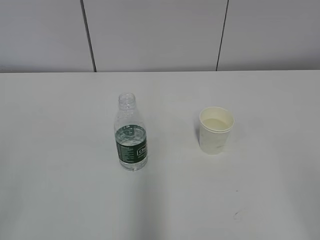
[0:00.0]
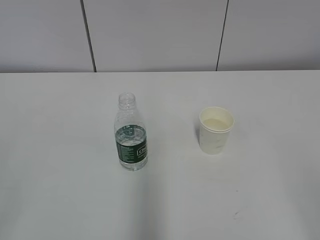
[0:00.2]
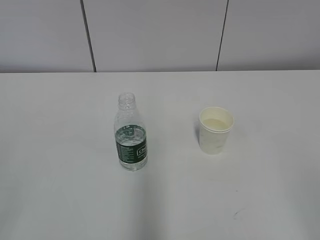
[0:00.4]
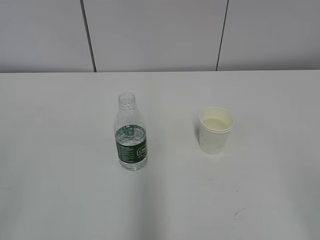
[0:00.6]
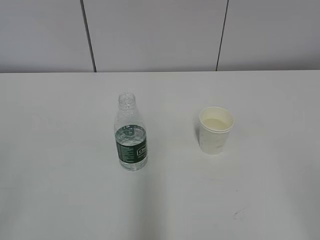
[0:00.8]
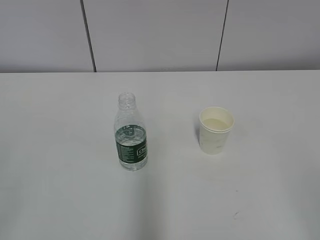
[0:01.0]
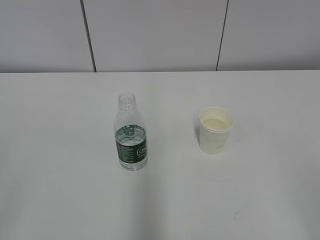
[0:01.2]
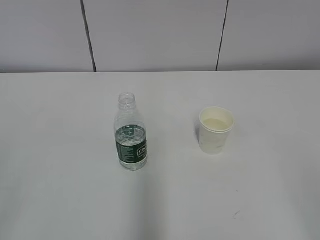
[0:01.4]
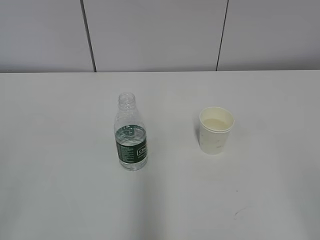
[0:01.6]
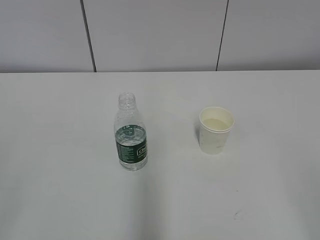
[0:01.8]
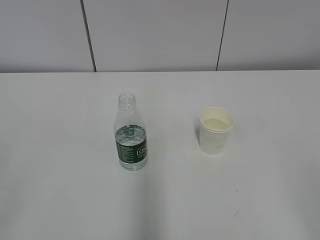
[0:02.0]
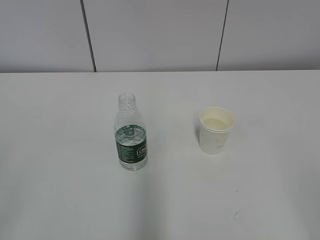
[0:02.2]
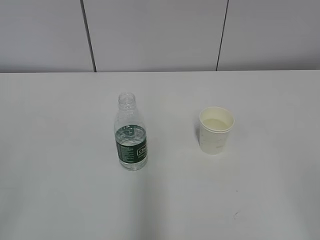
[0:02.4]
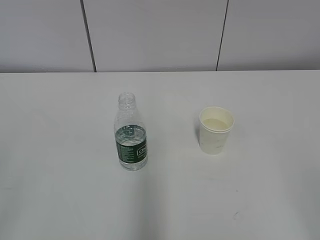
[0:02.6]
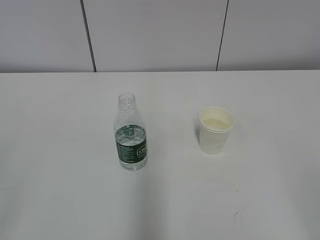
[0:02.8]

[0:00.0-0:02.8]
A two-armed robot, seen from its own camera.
0:00.0 to 0:02.8: Both grippers stay put.

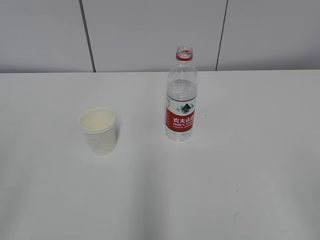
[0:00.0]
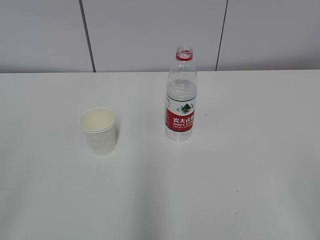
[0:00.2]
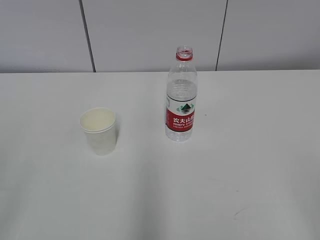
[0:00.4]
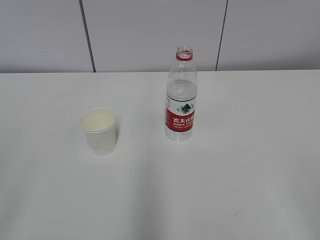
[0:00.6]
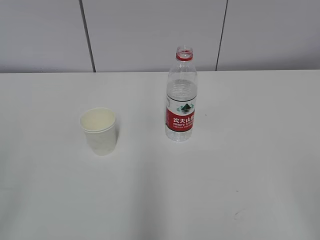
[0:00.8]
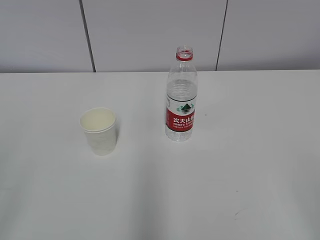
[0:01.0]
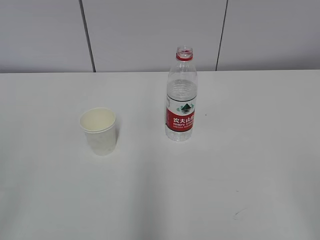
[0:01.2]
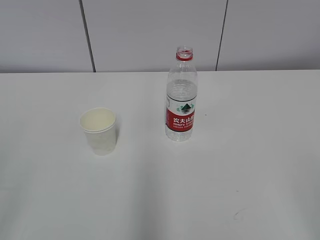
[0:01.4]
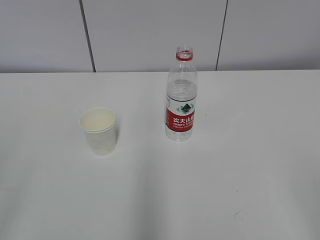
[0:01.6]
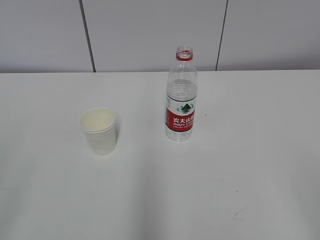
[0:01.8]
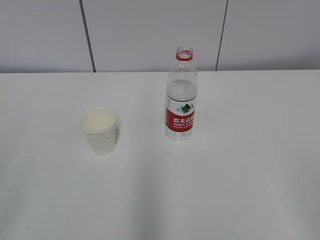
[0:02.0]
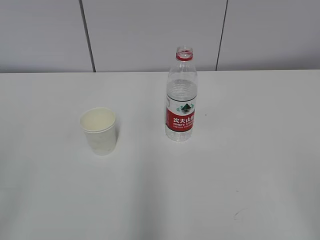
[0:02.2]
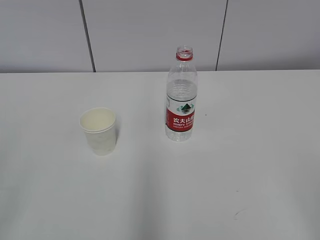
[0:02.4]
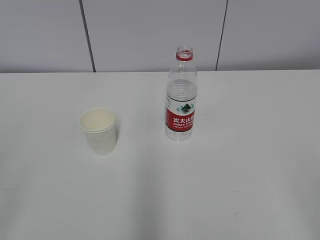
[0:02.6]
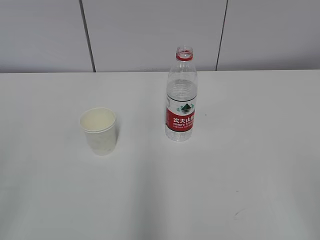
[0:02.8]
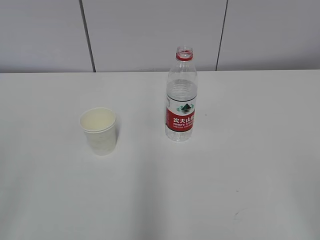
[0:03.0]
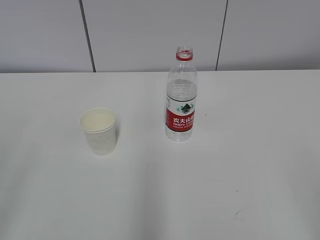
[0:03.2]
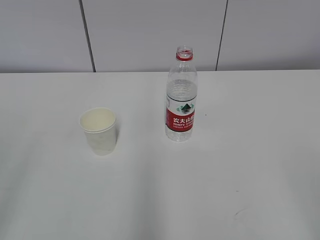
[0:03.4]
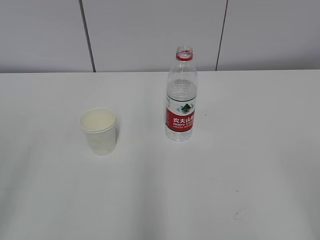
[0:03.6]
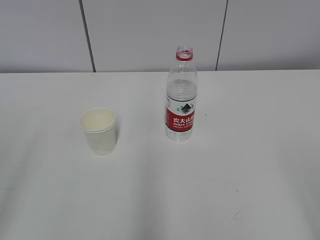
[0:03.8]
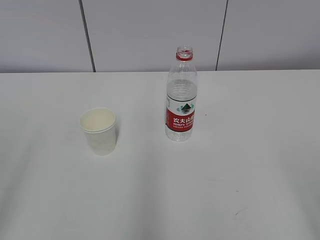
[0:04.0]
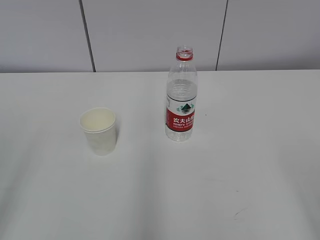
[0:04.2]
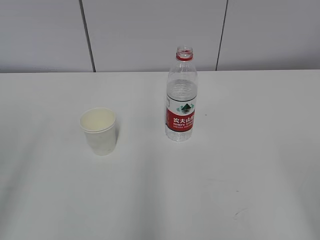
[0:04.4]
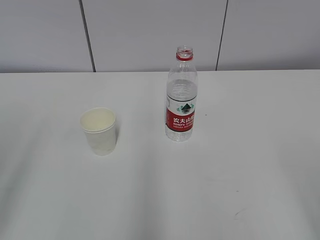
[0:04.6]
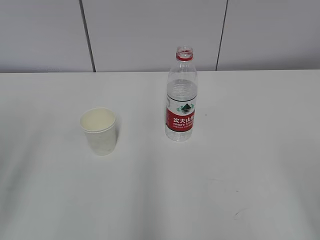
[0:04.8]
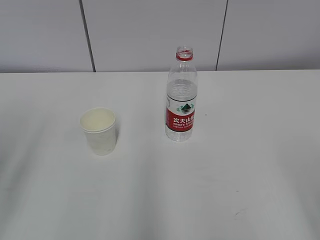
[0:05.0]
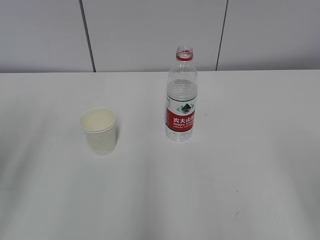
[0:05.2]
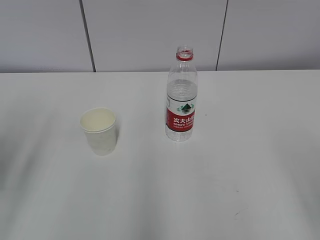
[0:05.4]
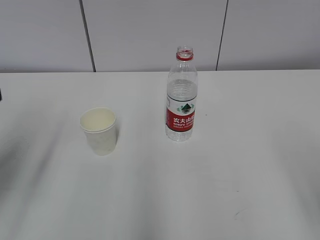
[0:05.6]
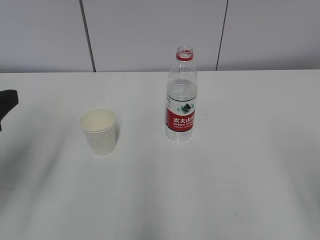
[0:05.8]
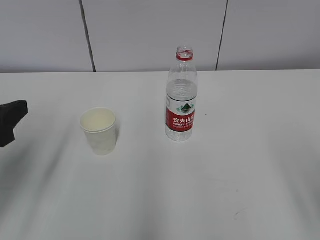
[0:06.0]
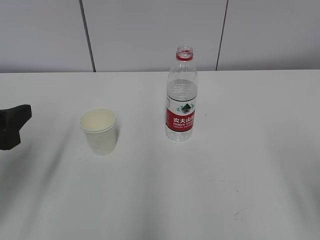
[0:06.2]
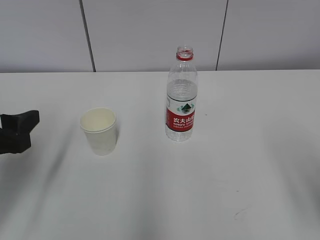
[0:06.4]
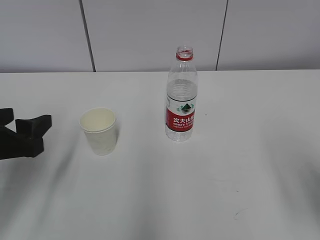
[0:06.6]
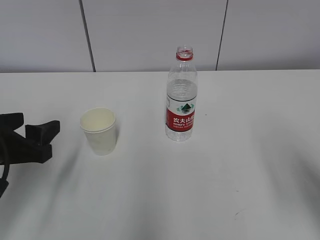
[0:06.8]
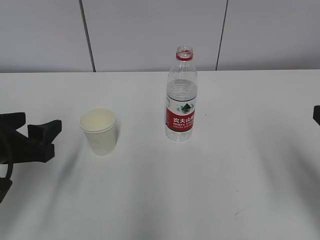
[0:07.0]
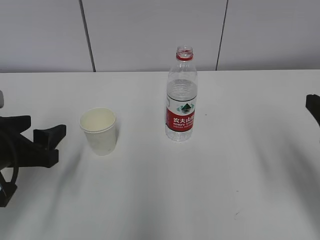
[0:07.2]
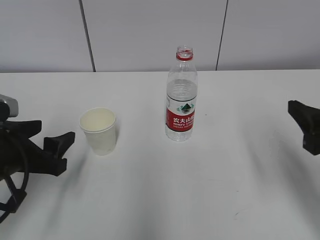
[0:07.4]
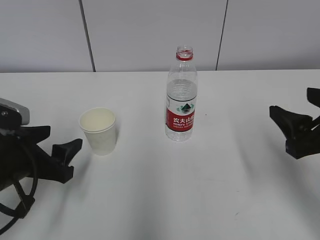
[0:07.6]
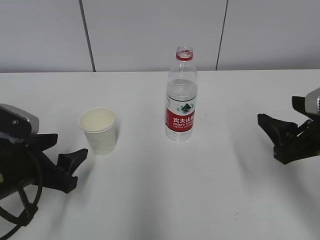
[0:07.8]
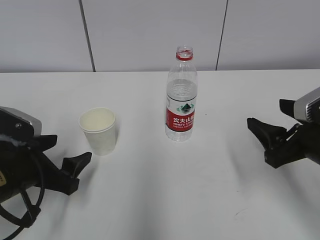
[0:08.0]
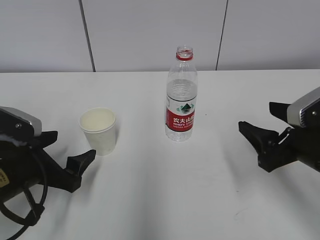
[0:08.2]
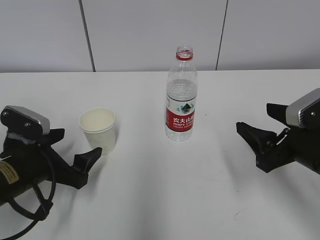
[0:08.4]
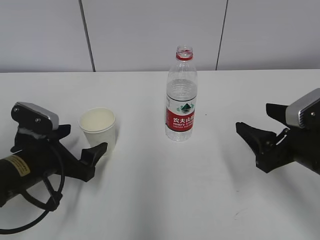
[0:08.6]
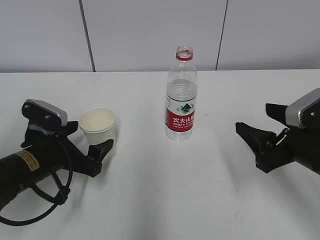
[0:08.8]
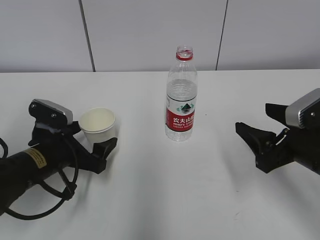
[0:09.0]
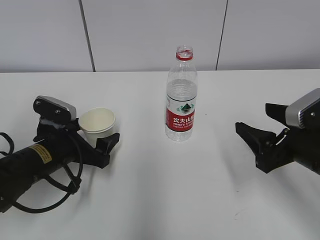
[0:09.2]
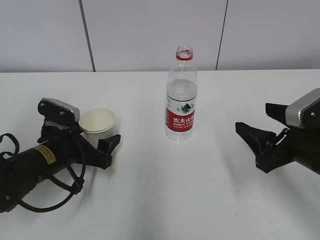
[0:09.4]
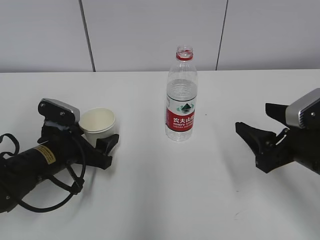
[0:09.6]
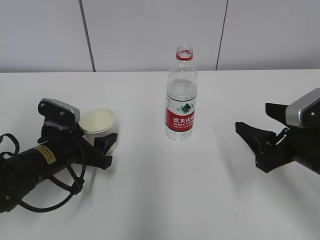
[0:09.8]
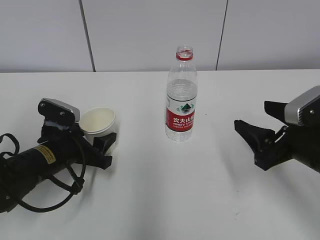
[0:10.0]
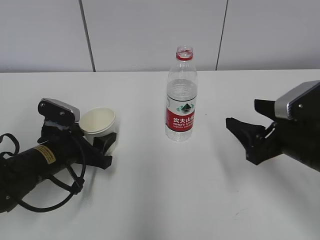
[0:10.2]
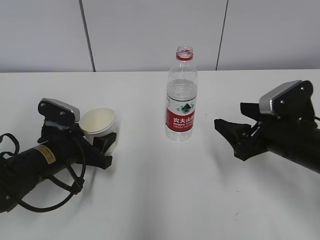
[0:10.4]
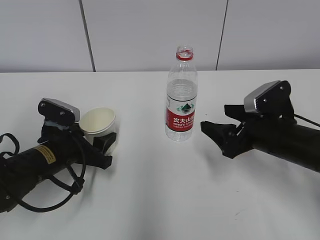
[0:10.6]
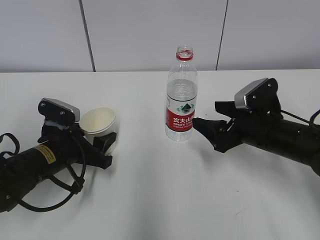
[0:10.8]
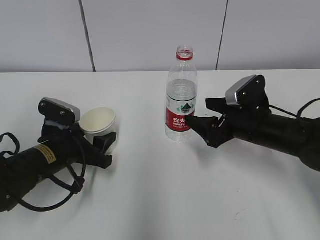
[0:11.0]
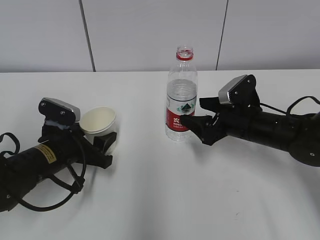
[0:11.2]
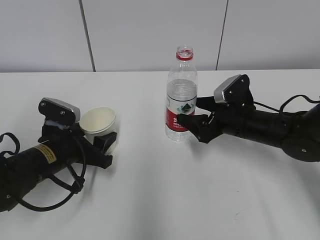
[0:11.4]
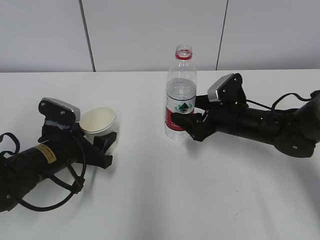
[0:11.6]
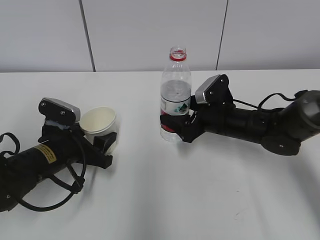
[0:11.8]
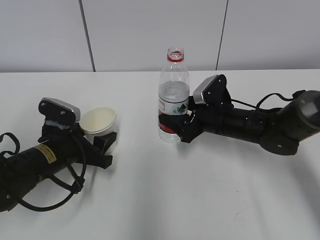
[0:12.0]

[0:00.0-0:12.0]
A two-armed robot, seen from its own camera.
Step, 0:00.0 to 0:10.2: Grab the paper cup with the left hand.
0:01.6 to 0:03.0: Both grippers stay about where they are.
0:04.4 to 0:06.0: The left gripper travels forward and downward by roughly 15 cm.
0:06.0 to 0:07.6: The left gripper is displaced downward by some 10 cm. Meanwhile the right gripper travels forward and downward by approximately 15 cm.
0:07.6 to 0:09.0: The right gripper moves some 5 cm; the left gripper moves forward, about 5 cm, and opens its fingers.
0:09.0 to 0:10.4: The left gripper closes its fingers.
0:10.4 to 0:12.0: The right gripper travels forward, to the left and downward by about 15 cm.

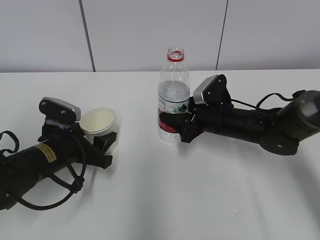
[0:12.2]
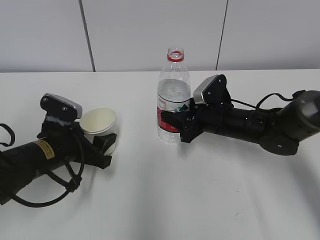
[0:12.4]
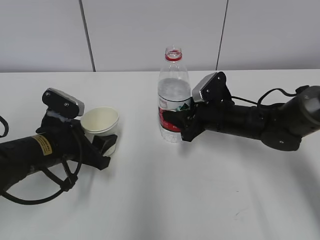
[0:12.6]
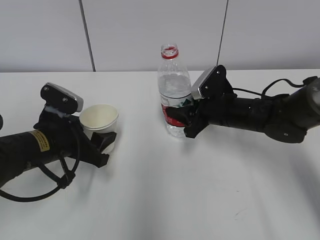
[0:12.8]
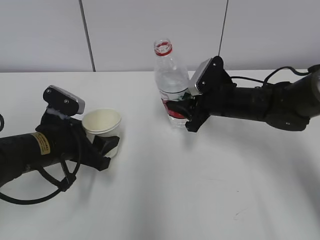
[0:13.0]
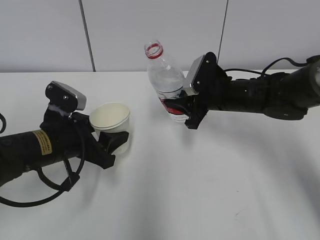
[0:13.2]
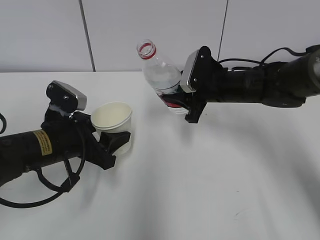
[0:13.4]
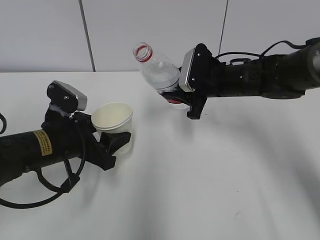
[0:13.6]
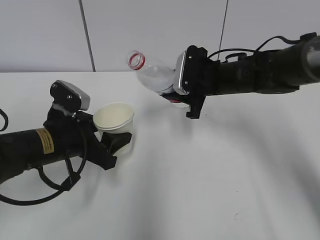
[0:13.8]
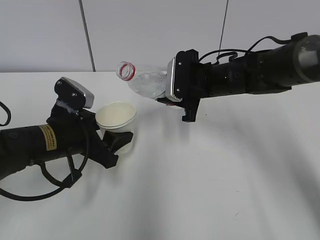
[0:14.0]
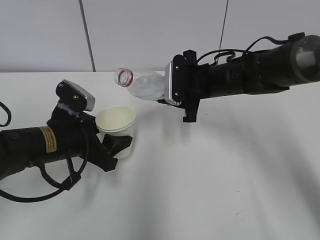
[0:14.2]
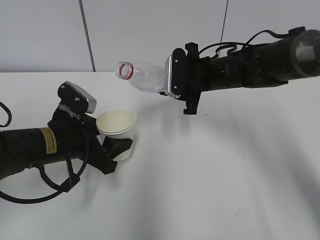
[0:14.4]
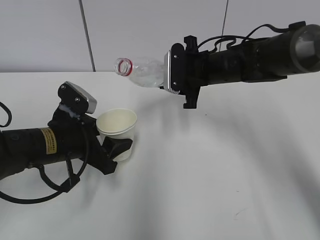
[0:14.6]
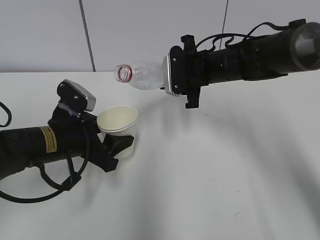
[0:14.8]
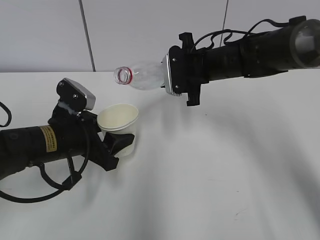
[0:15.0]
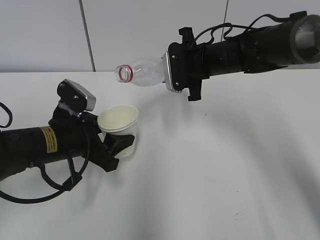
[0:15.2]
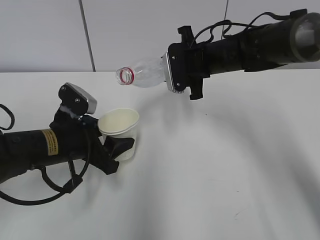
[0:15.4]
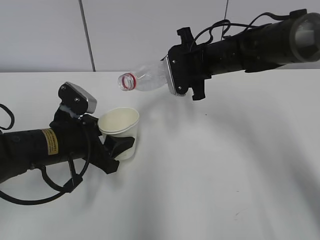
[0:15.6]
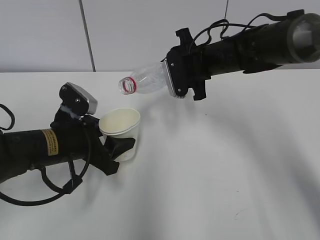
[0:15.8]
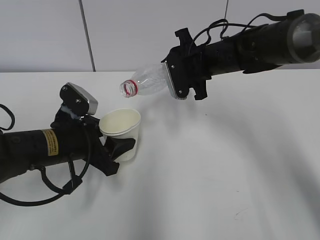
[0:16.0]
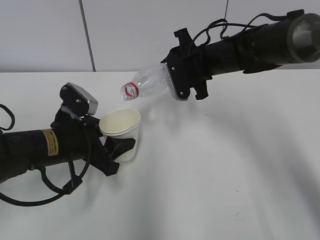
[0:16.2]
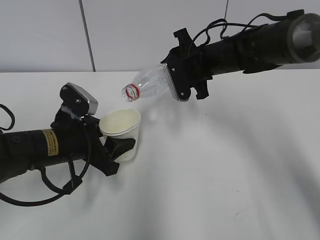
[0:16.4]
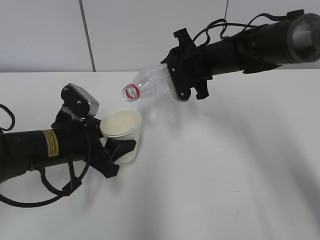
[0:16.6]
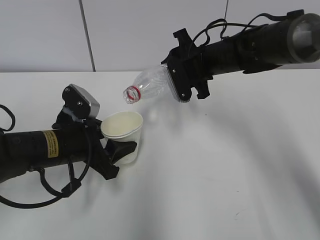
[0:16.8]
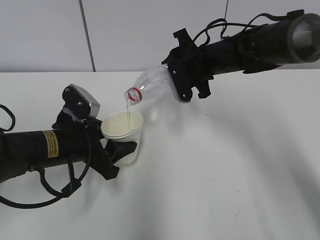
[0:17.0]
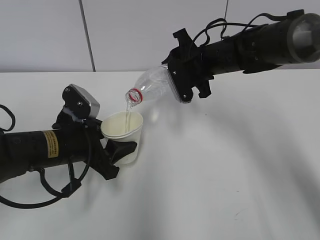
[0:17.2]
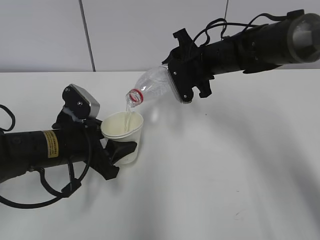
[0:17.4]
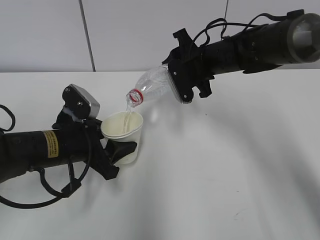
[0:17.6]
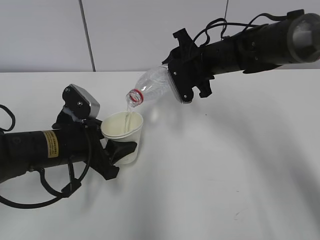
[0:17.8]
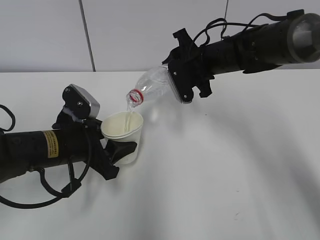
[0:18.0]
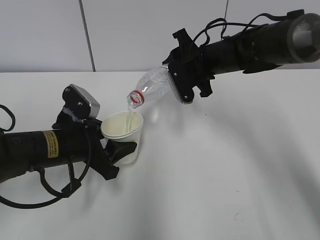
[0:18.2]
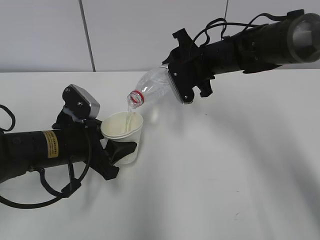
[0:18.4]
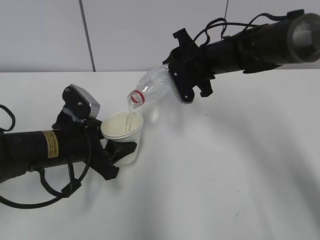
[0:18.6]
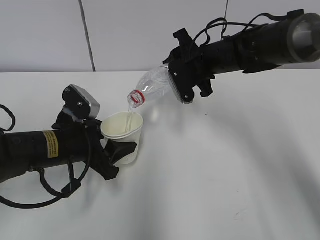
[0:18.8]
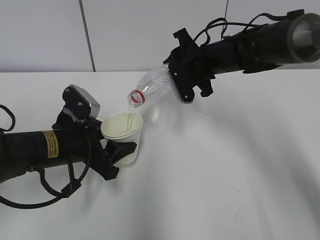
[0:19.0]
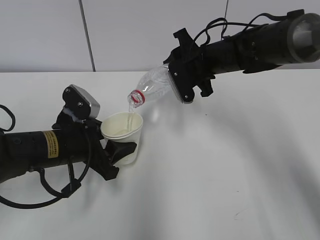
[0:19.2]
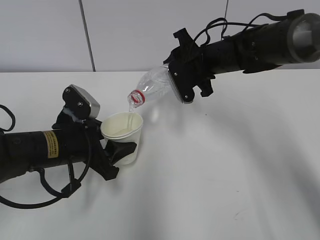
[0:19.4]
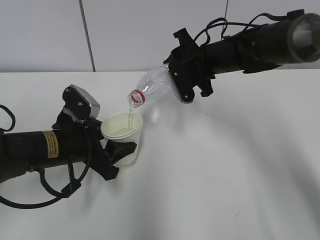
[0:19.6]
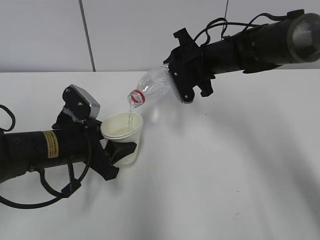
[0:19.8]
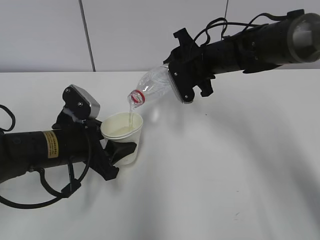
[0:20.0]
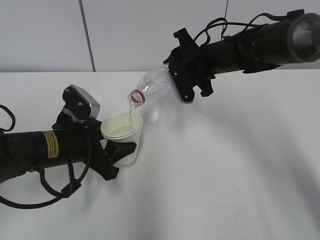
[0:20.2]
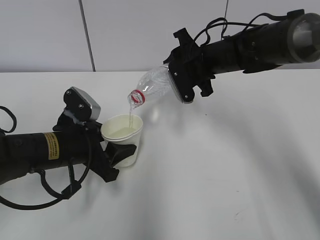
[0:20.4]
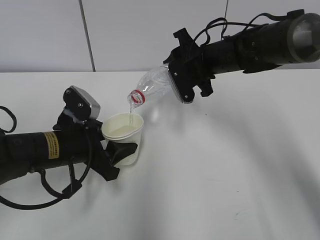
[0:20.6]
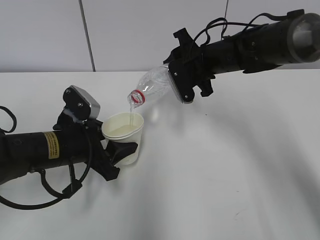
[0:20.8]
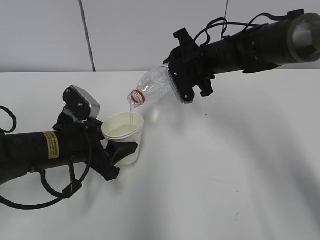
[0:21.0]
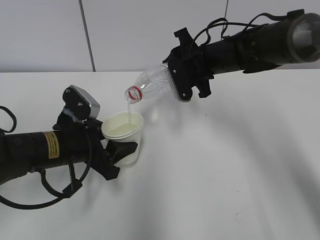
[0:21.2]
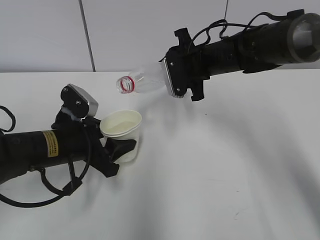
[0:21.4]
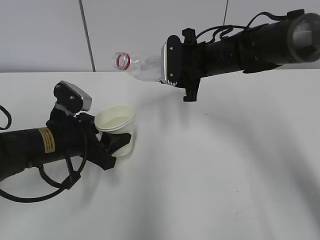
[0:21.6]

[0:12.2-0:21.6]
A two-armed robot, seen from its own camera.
Step, 0:13.6 to 0:17.6: Fill water with the left hand.
Step, 0:13.6 to 0:17.6: Pour water with the right hand.
0:12.2 to 0:13.8: The right gripper travels upward by some 10 cm, and closes. Meanwhile the left gripper changes place by some 5 cm.
0:15.4 to 0:17.0: There are only small adjustments of the grippers.
0:17.0 to 0:20.0: Both grippers stay about where they are.
